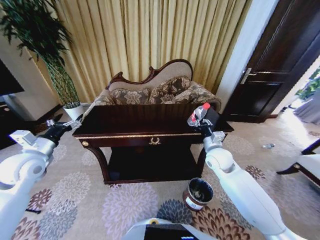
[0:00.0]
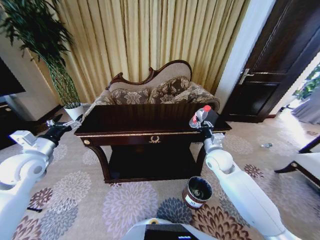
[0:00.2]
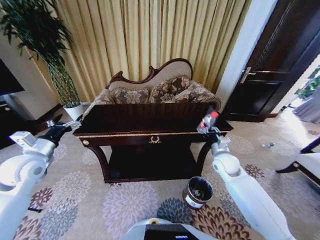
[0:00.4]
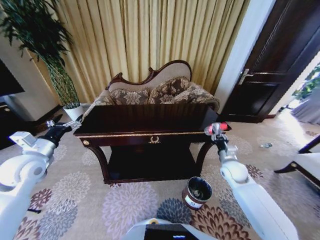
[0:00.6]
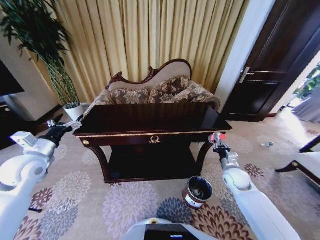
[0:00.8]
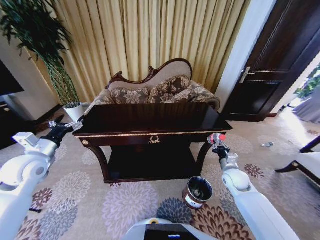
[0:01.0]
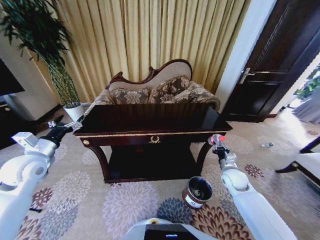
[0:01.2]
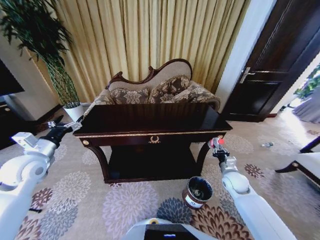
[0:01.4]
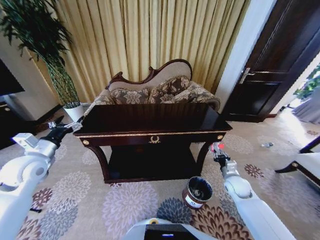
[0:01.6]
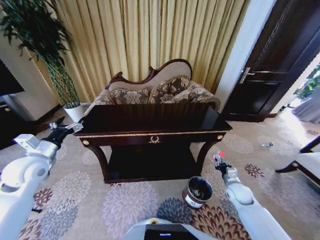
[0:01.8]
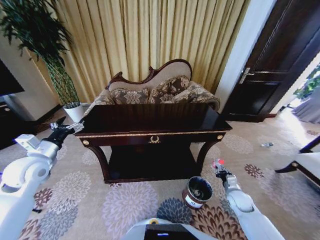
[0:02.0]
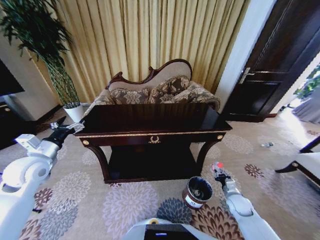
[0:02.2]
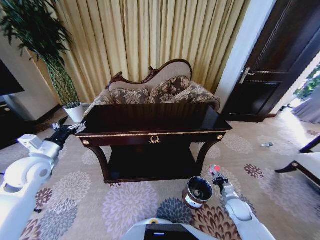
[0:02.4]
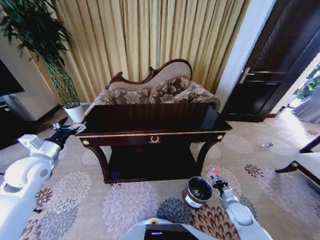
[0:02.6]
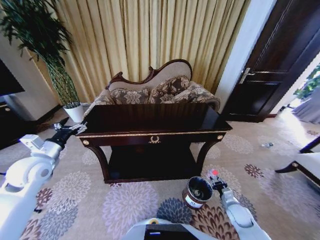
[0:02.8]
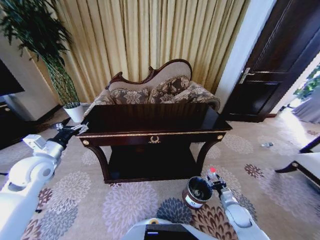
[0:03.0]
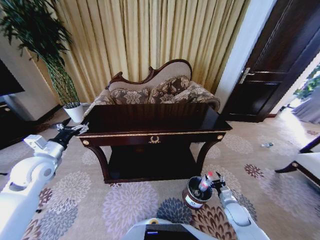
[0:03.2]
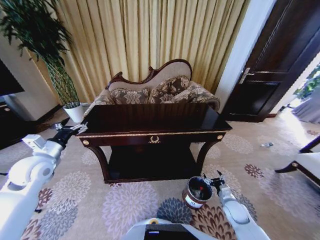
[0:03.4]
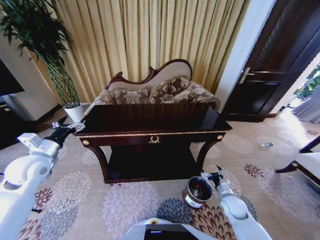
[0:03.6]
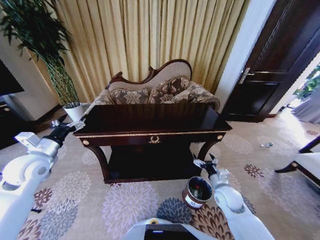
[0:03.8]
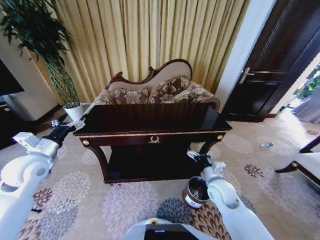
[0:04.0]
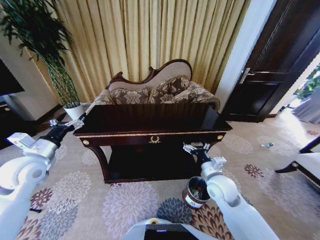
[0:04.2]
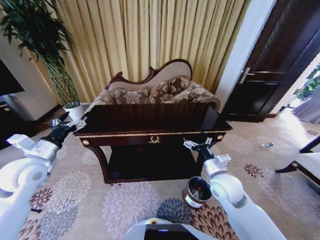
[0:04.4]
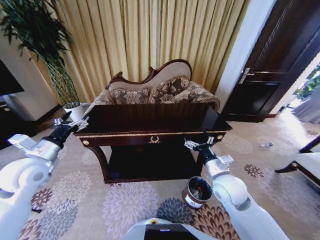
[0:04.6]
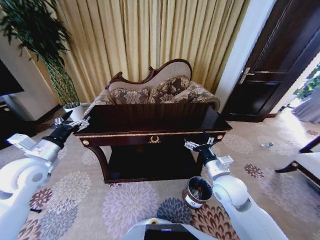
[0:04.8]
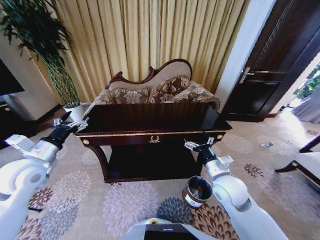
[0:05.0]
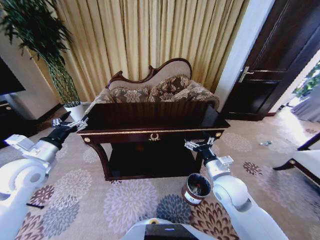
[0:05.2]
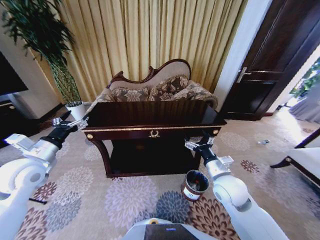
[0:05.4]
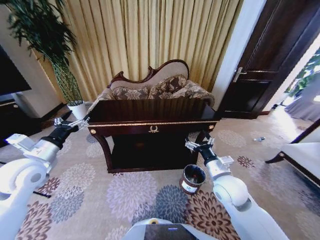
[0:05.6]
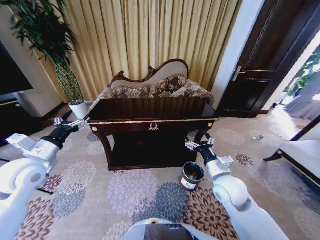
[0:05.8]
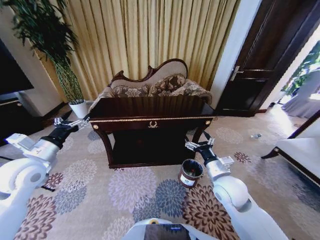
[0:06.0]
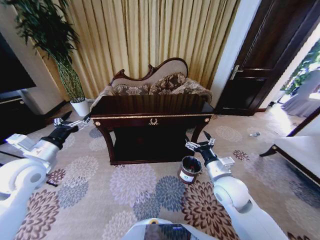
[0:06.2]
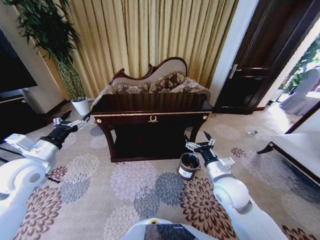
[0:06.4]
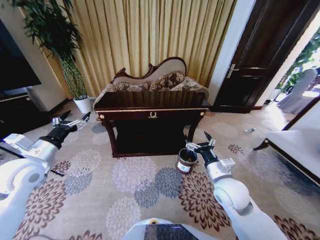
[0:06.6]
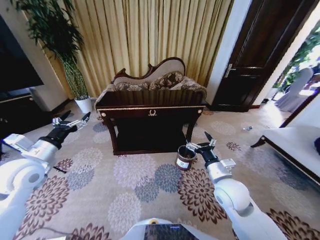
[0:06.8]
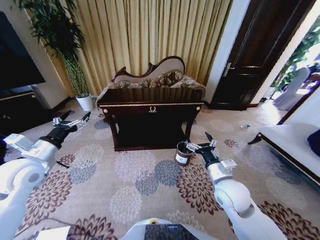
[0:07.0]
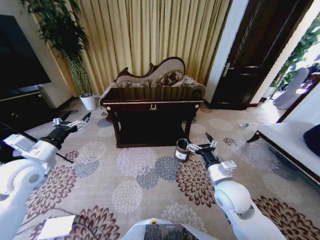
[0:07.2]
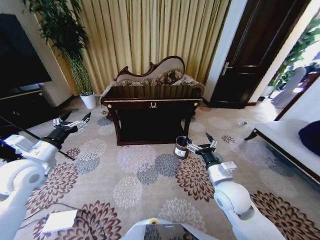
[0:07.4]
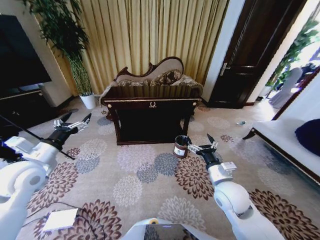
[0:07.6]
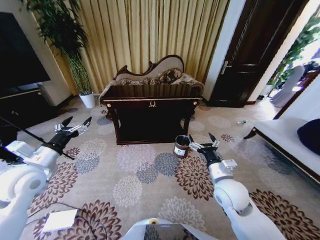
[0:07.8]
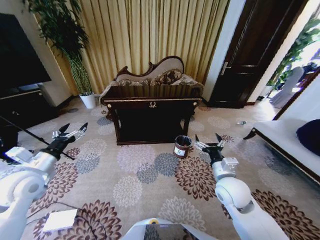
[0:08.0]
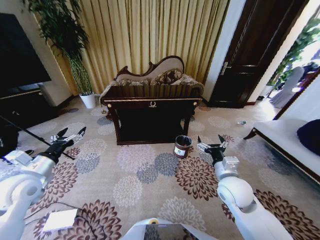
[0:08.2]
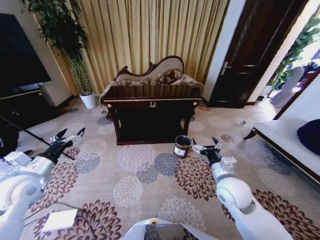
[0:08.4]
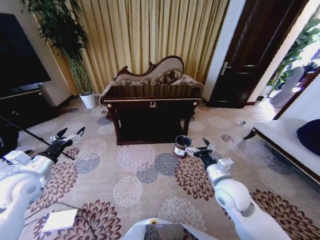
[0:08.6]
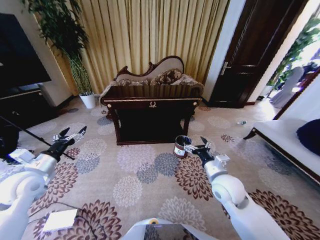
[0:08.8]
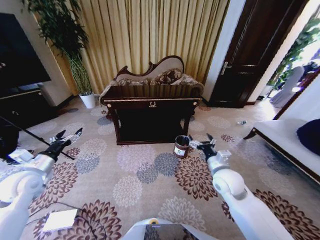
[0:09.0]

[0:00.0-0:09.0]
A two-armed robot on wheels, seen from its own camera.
Task of the whole recording: Move to the front of the table and place the trash on the table into the trash bin.
0:00.0 to 0:01.6: The right gripper is displaced downward, to the right and backward by roughly 20 cm.
0:01.6 to 0:03.0: The right gripper shifts about 15 cm downward and backward.
0:03.0 to 0:04.4: The right gripper goes approximately 30 cm upward and to the left, and opens.
0:07.6 to 0:09.0: The left gripper goes about 10 cm downward and to the left; the right gripper moves approximately 5 cm.
